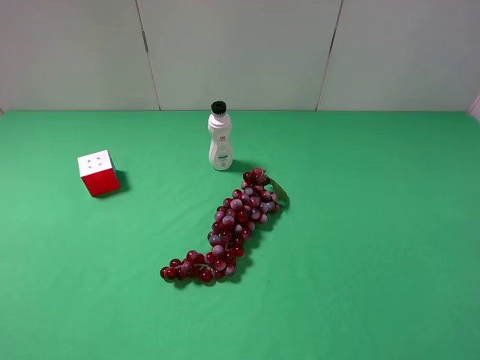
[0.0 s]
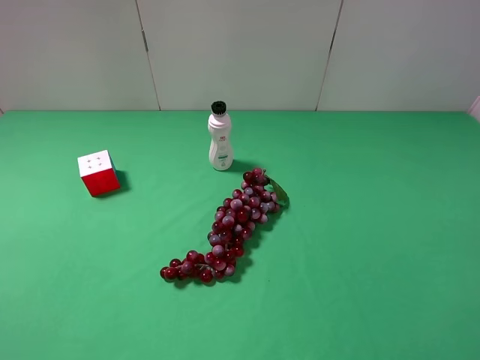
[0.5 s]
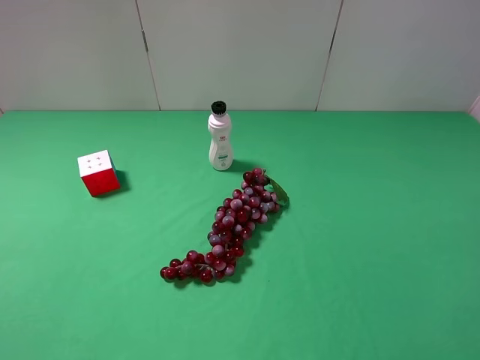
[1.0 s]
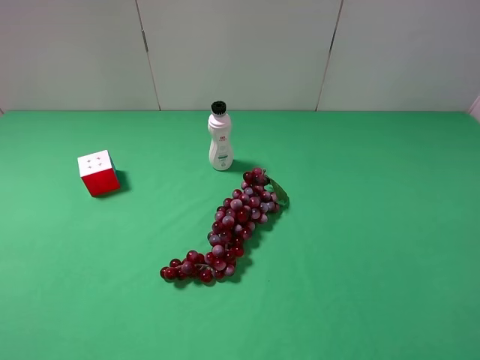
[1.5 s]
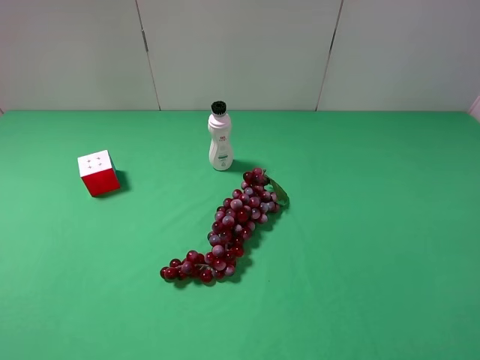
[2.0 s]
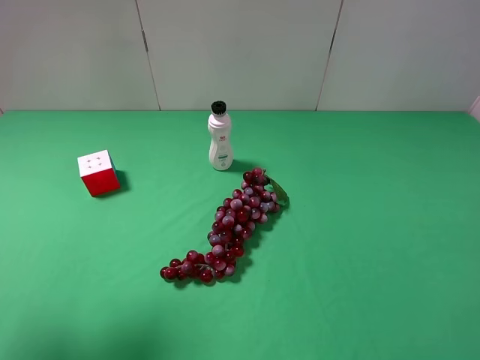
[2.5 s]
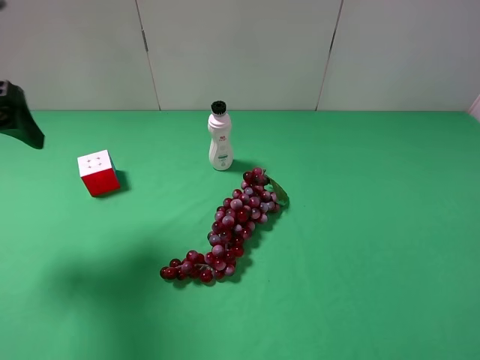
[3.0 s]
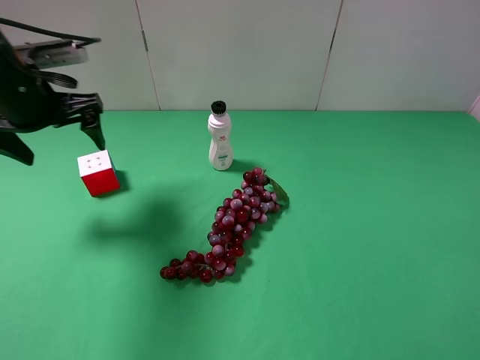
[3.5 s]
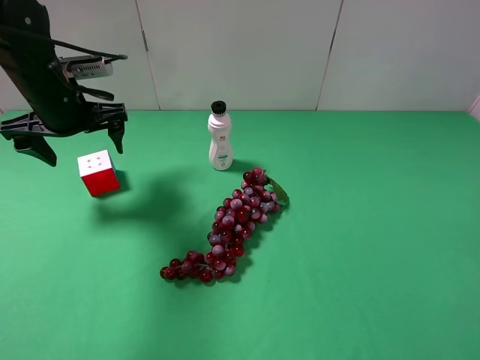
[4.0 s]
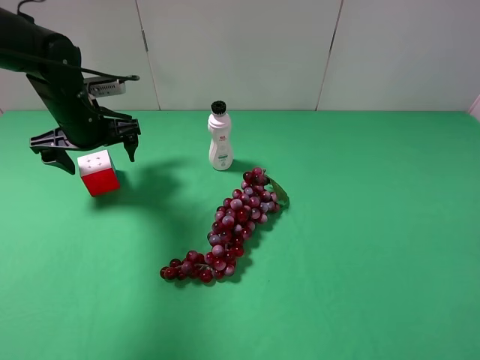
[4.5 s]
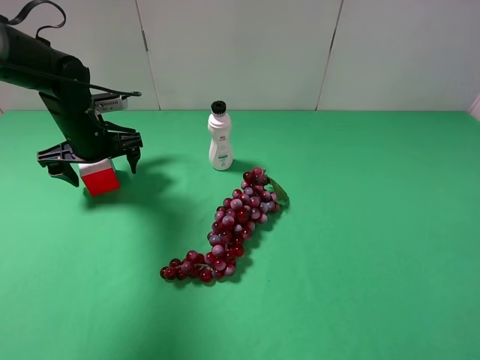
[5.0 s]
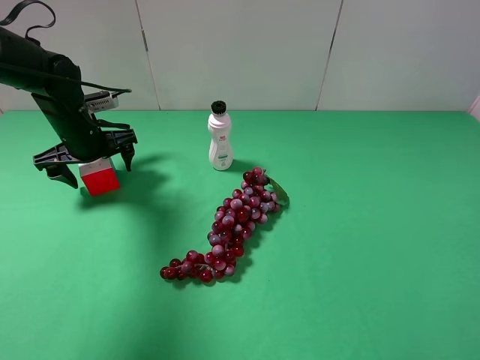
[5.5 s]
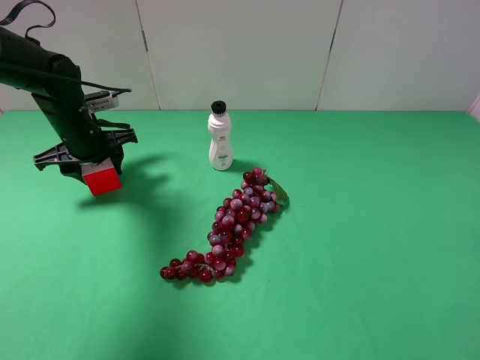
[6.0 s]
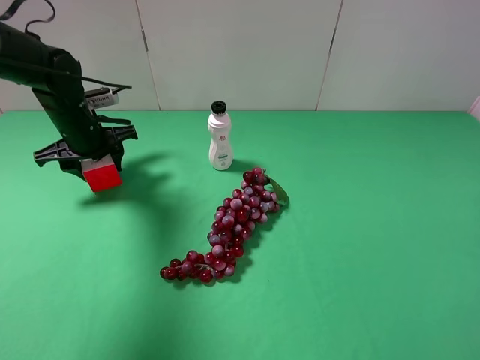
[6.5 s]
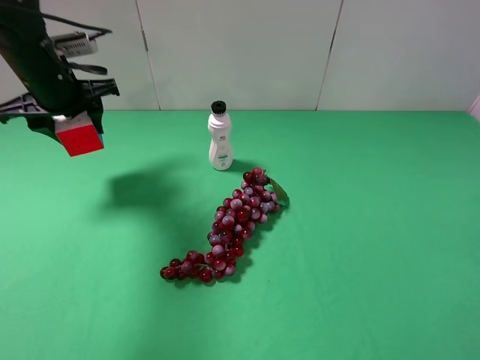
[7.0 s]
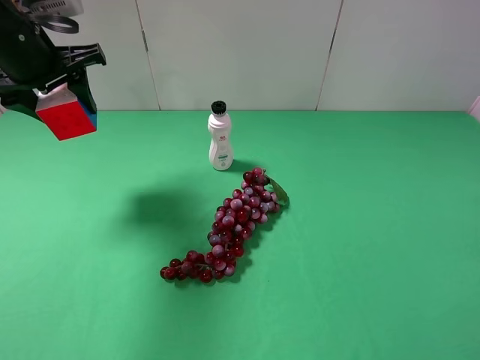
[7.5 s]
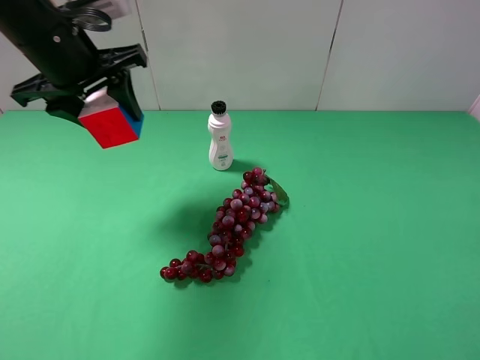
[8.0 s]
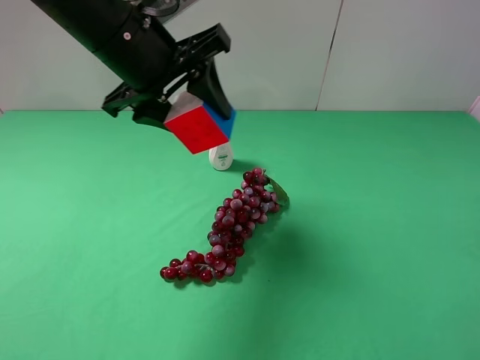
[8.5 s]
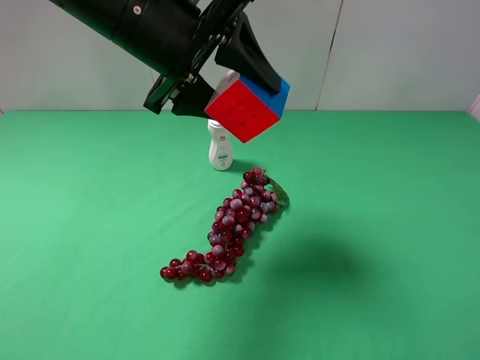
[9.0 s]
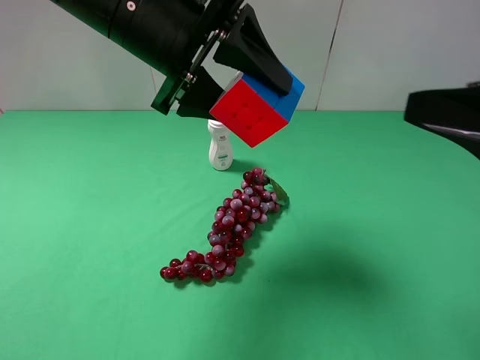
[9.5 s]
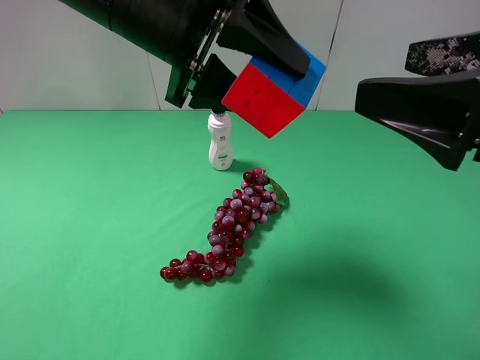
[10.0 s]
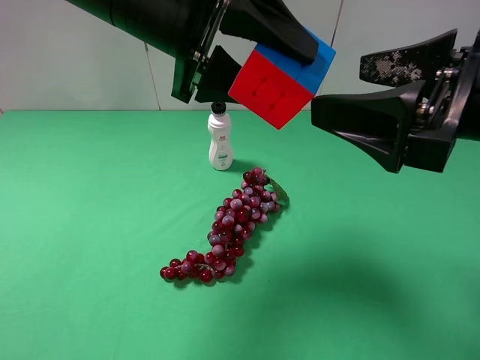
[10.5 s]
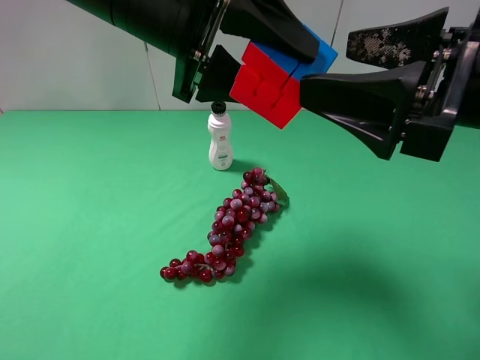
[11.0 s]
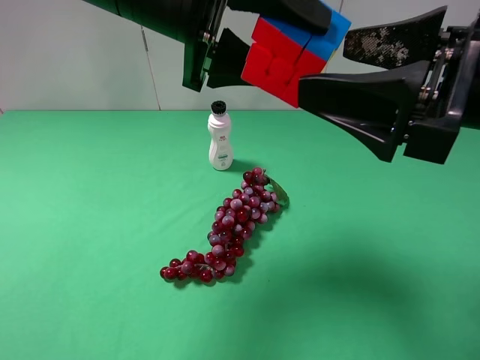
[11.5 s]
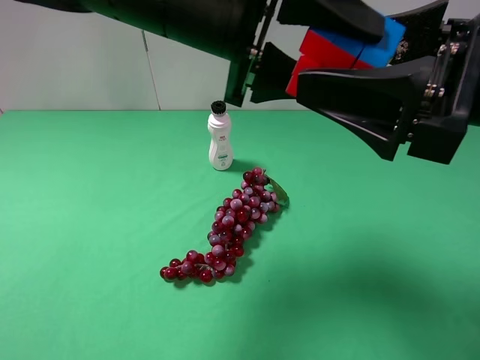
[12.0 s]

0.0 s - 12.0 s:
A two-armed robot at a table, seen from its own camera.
Task of the whole recording: use the left gripper to pick up the item and transfer it from the left gripper to the right gripper.
Step, 0.0 s - 6.0 s: Use the left gripper to grab the Rubik's Cube on the left side of the table.
2.0 s - 4.0 s: The left gripper shifts approximately 35 cm forward.
4.0 s - 6.0 s: The left gripper travels downward by some 10 cm, and closes its fingers.
6.0 s - 8.0 s: The left gripper travels upward by roughly 15 cm.
8.0 s - 10.0 s: The right gripper moves forward and to the left, approximately 15 cm, while the left gripper moves to the right and backward, approximately 10 cm.

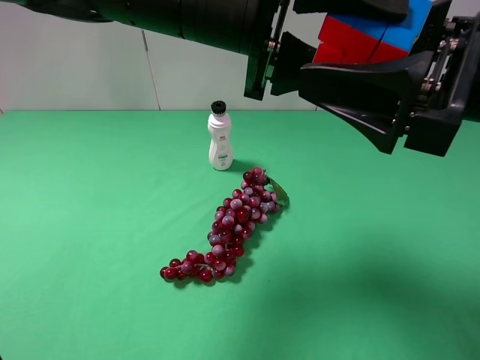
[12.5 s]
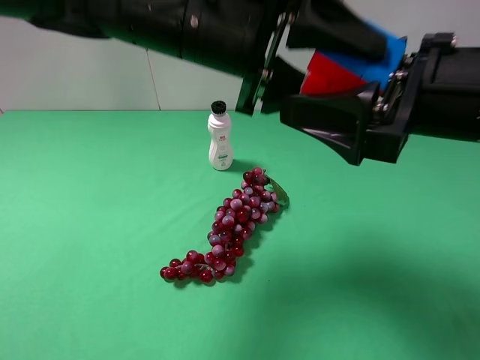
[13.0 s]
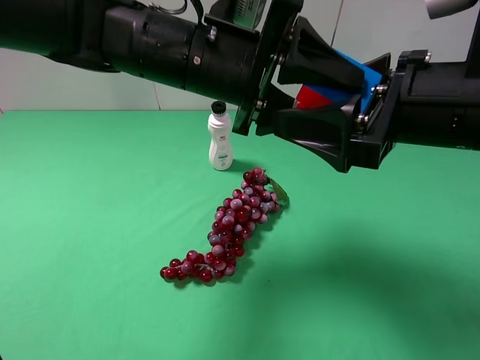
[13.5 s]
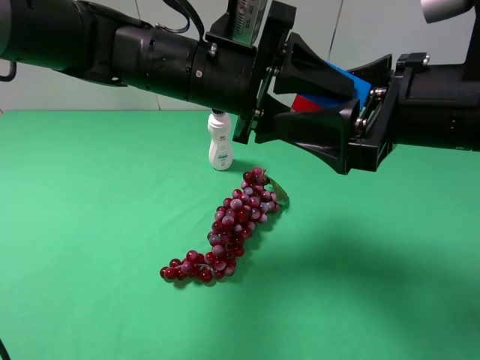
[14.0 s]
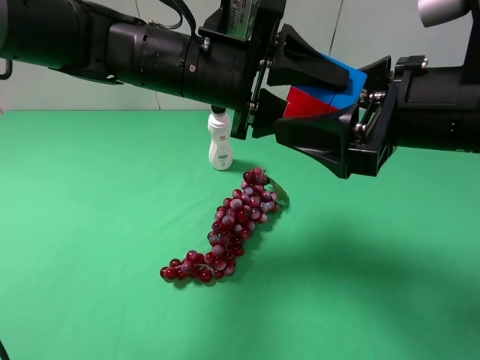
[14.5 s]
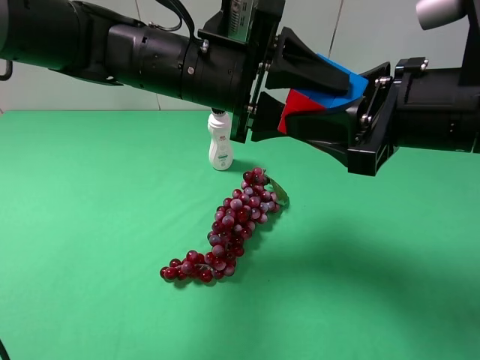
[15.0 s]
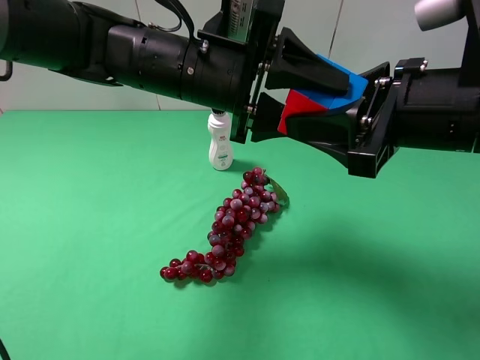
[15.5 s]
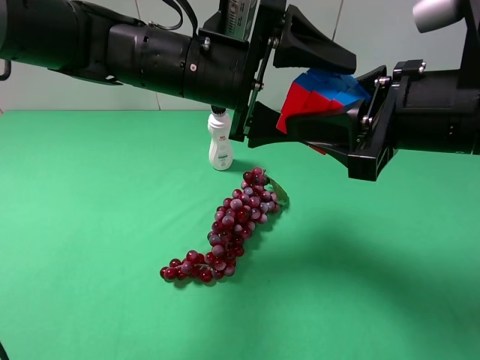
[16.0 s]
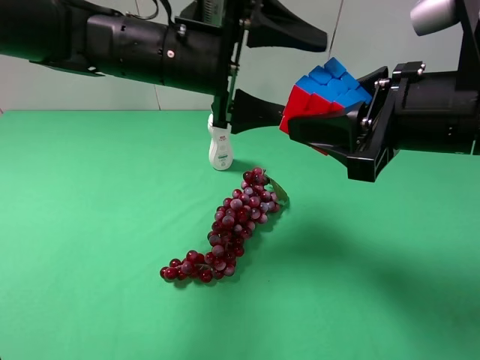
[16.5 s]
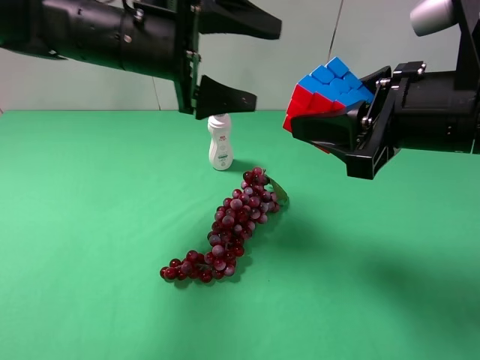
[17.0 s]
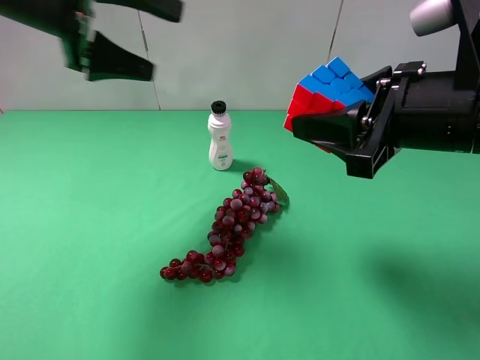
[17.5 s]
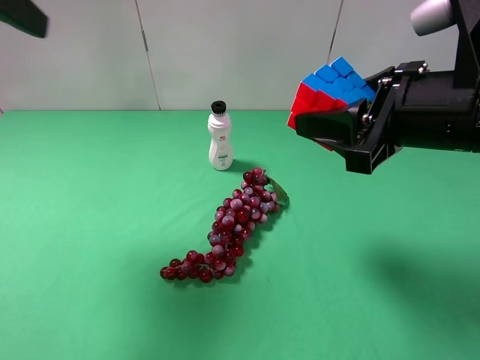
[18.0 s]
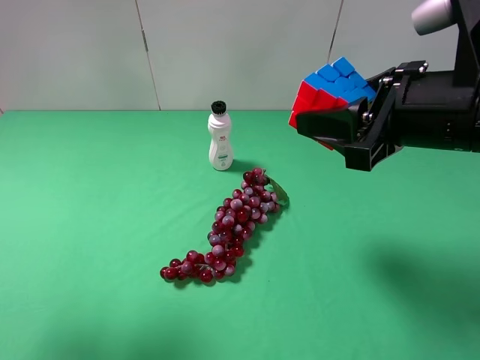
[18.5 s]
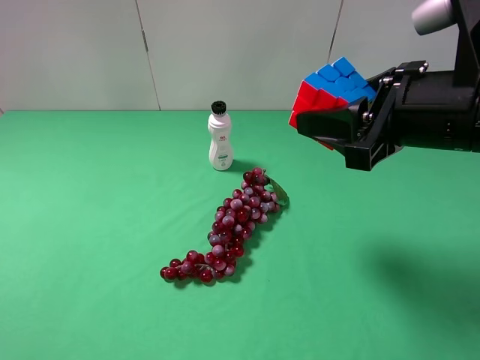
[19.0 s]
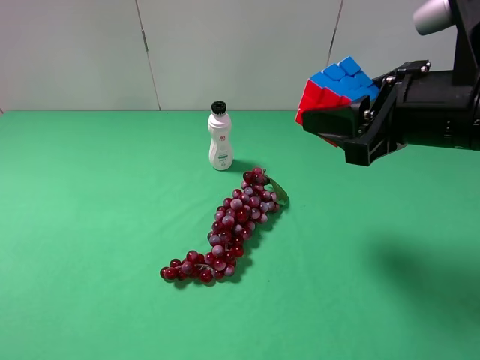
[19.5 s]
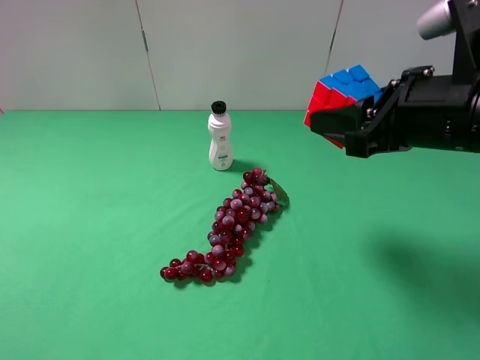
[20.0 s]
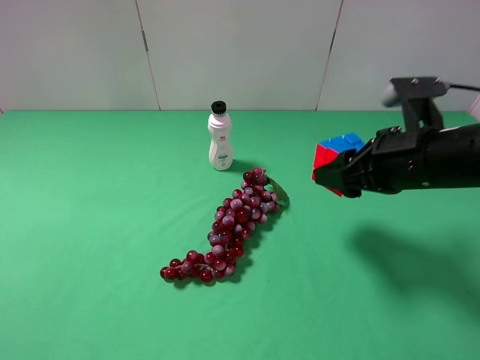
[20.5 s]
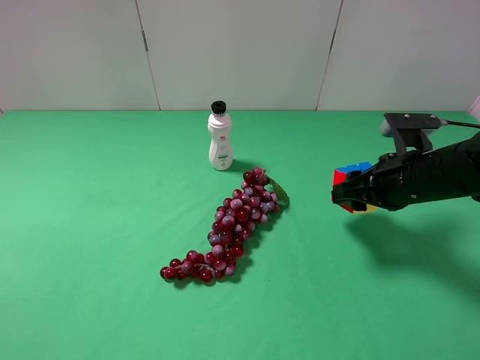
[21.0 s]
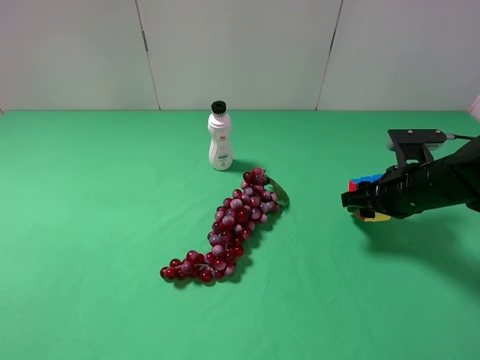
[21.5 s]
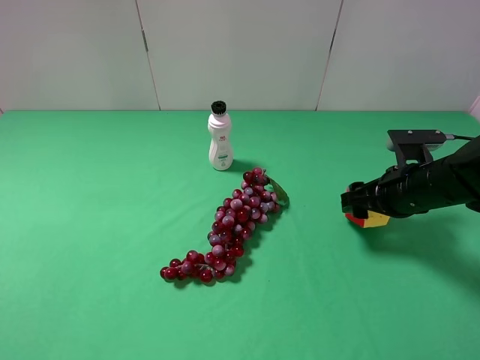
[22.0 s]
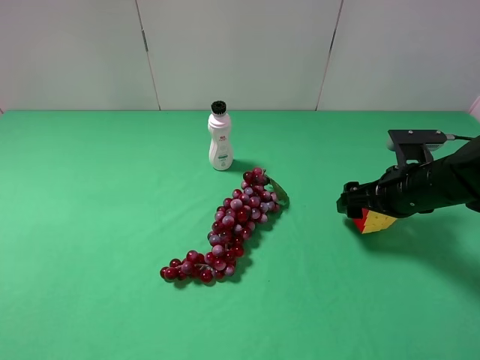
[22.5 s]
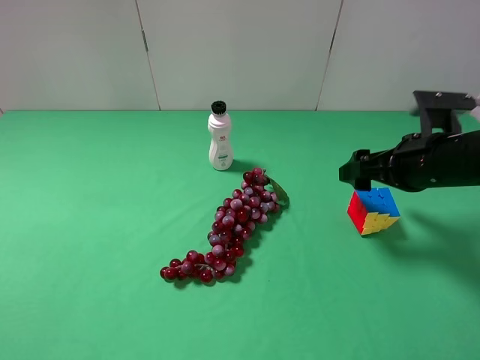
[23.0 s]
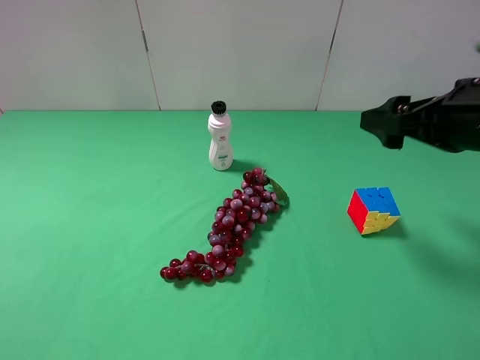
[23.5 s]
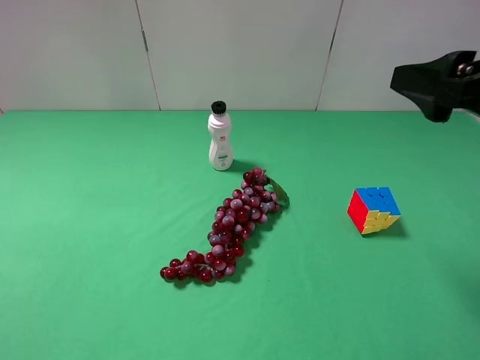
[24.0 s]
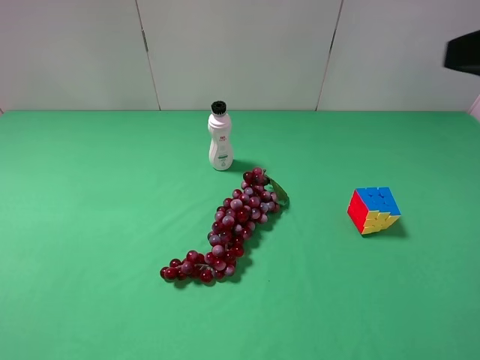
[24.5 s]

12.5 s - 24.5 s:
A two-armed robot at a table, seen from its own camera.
Task of the whole recording: use the left gripper to pick up the item and transfer it from the left gripper to the right gripper.
Step, 12.5 s - 16.0 s: Pass the Rubik's Cube to the right gripper.
Step, 16.5 s - 22.5 s: The right gripper places Rubik's Cube on the right side of the table.
12.5 s - 14.5 s: The right gripper shifts by approximately 5 cm, while the left gripper is displaced downward by about 5 cm.
14.5 s - 16.5 s: The right gripper closes up. The left gripper opens.
16.5 s - 18.5 s: The left gripper shifts about 30 cm to the left, backward and upward.
18.5 s - 20.5 s: The right gripper shifts about 5 cm downward. Meanwhile the left gripper heads backward and downward, covering approximately 15 cm.
20.5 s - 22.5 s: The right gripper is displaced downward by about 10 cm, and opens up.
22.5 s - 24.5 s: The right gripper travels upward and backward by approximately 25 cm.
